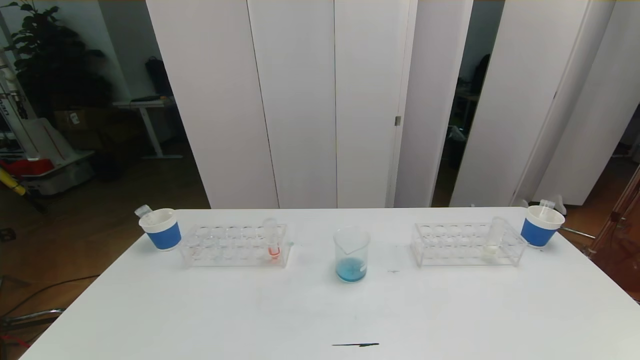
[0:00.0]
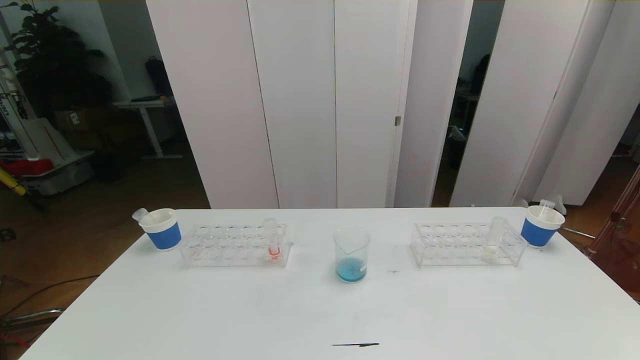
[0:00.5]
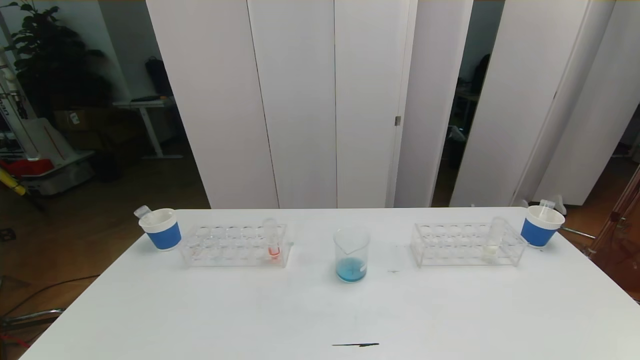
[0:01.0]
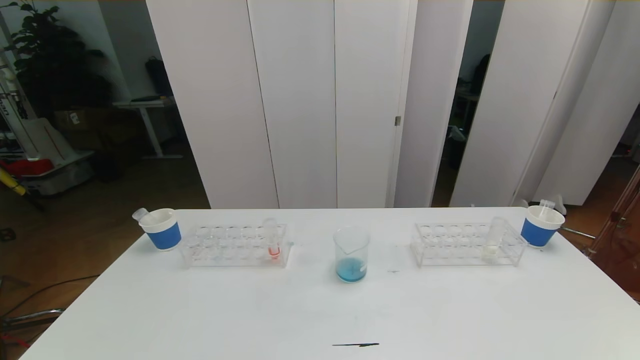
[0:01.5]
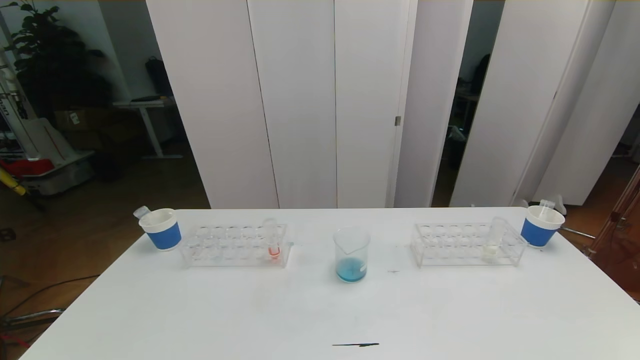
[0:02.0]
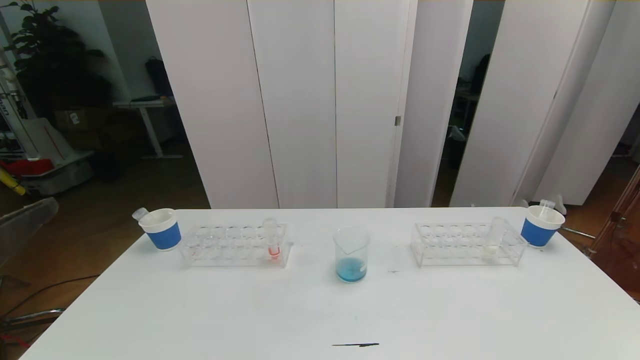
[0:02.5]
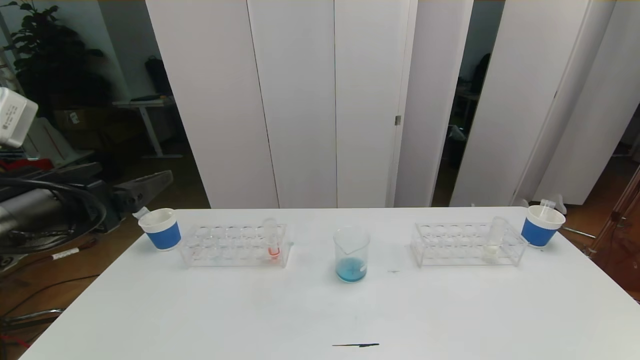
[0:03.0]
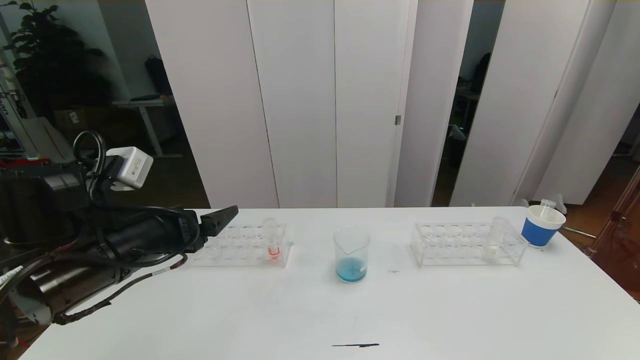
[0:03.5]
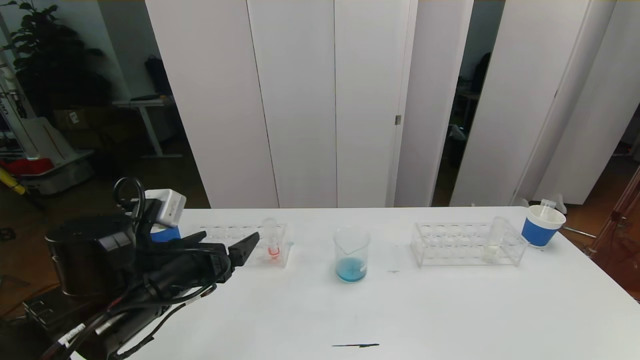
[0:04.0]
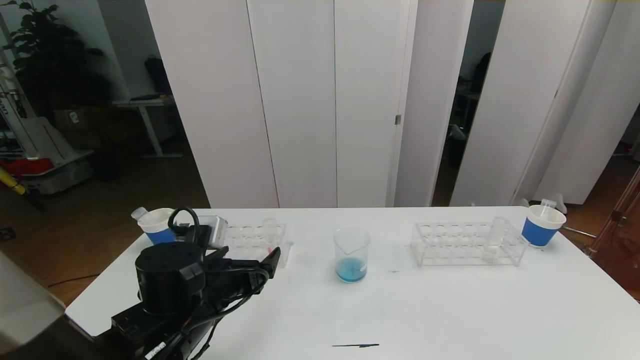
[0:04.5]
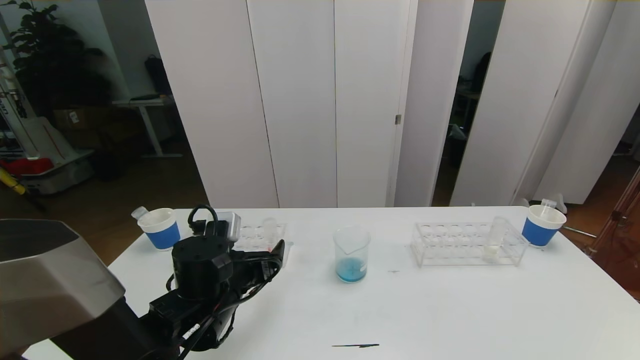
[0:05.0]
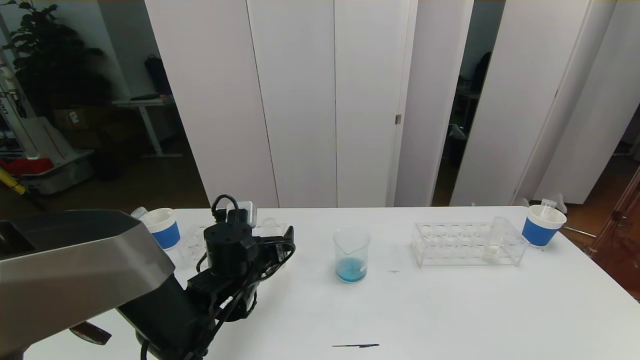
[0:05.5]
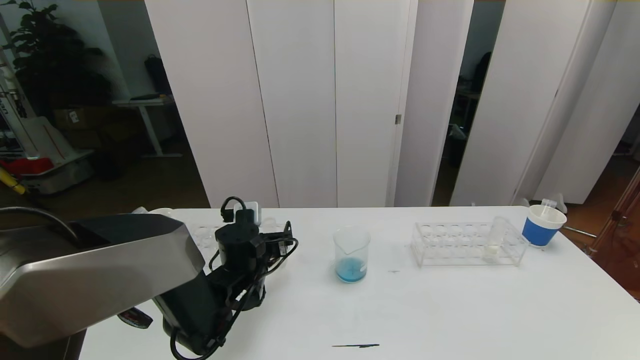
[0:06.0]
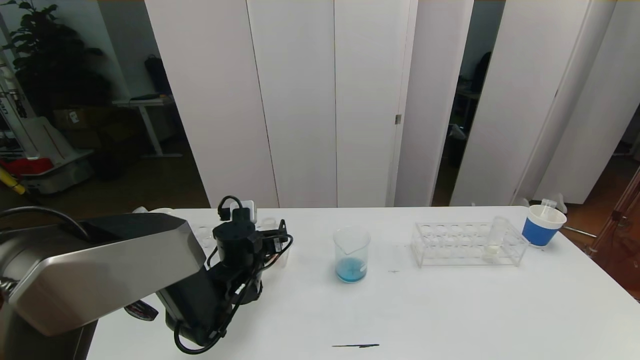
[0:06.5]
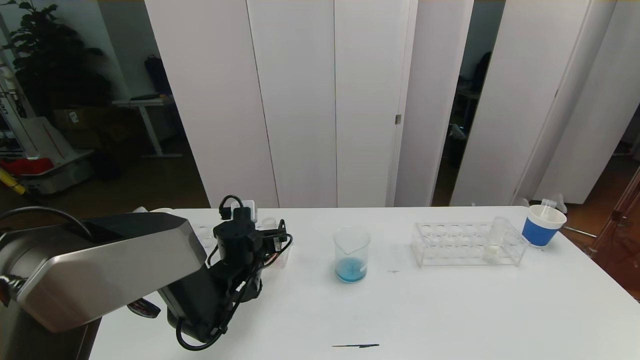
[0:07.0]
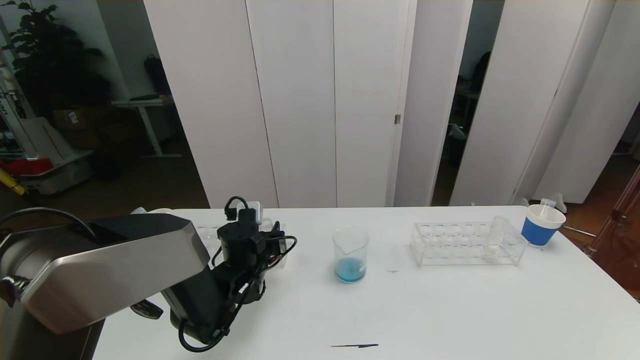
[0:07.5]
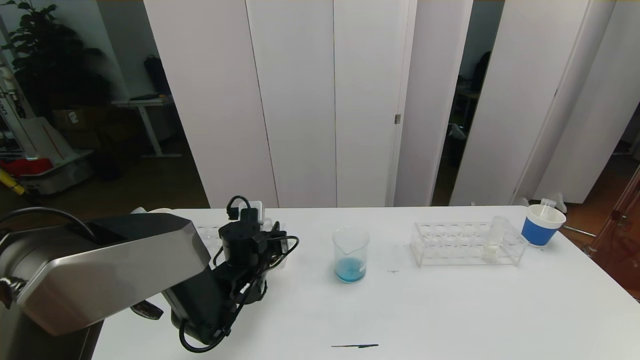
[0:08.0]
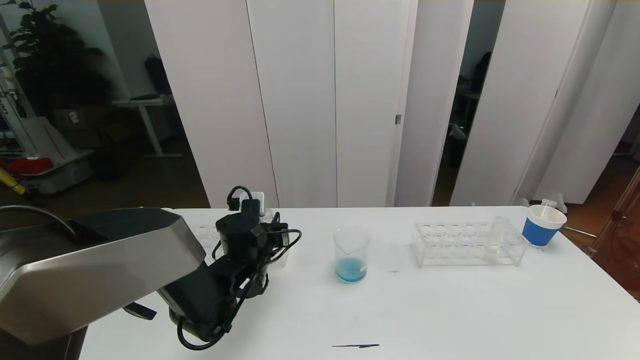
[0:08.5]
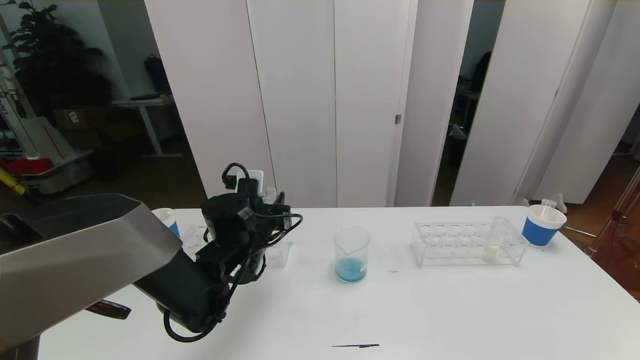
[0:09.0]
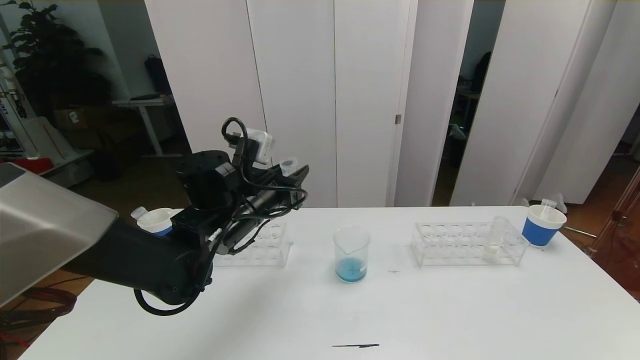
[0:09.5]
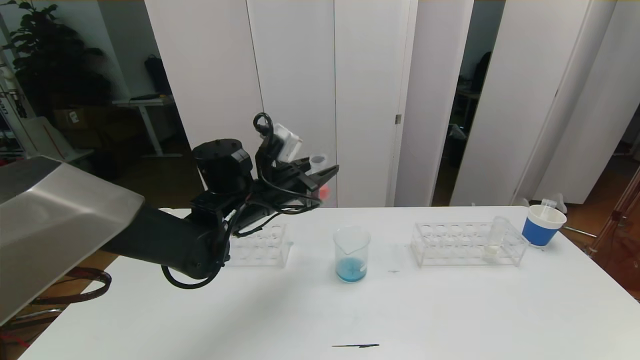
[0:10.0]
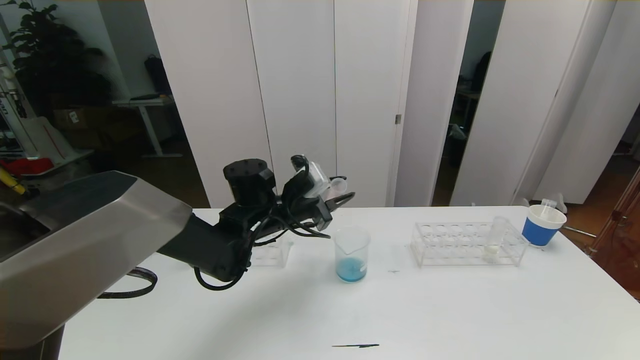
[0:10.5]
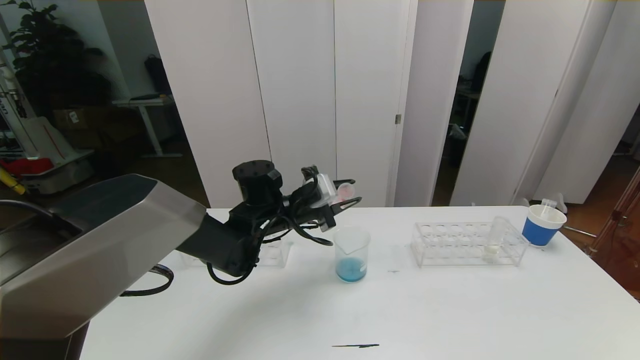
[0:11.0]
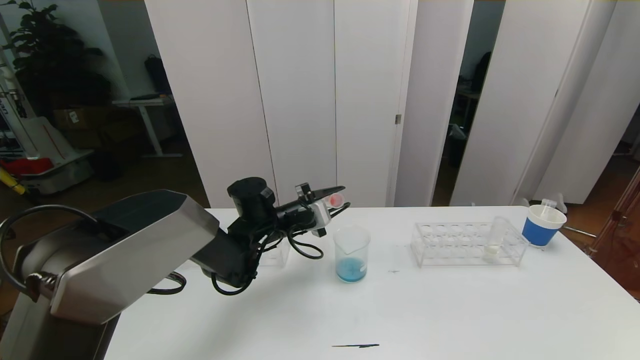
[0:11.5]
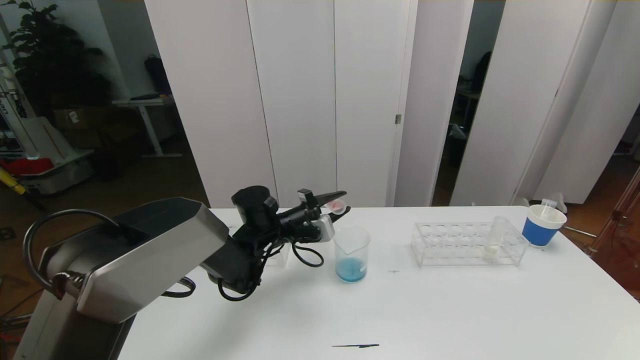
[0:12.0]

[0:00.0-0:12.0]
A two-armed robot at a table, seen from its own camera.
Task of the whole recording: pick up the test tube with red pigment the test tube with blue pigment and the test tube with white pigment by grippers and pour them into the beaker.
0:02.0 to 0:04.0: The left gripper moves forward, approximately 25 cm.
0:04.0 to 0:06.0: The left gripper is displaced forward, downward and to the right by approximately 15 cm.
0:06.0 to 0:08.0: The left gripper closes its fingers.
0:08.0 to 0:10.0: The left gripper heads upward, covering about 15 cm.
0:10.0 to 0:12.0: The left gripper moves downward, approximately 10 cm.

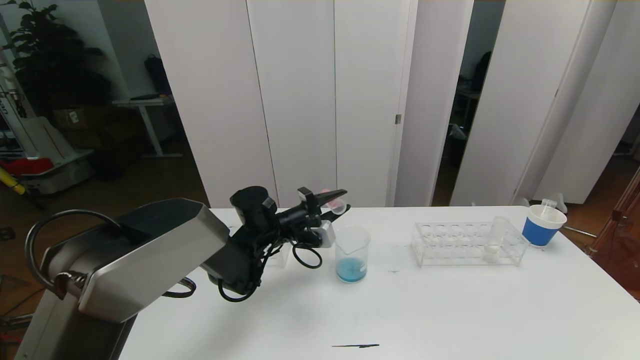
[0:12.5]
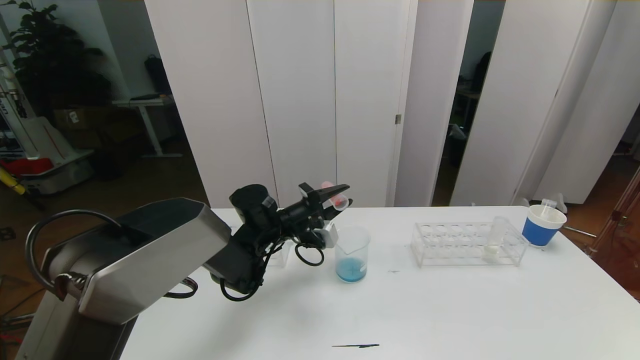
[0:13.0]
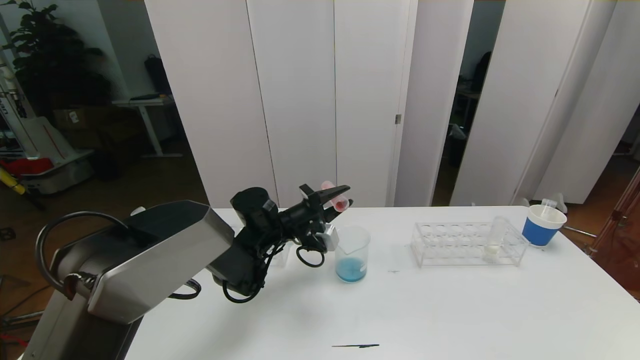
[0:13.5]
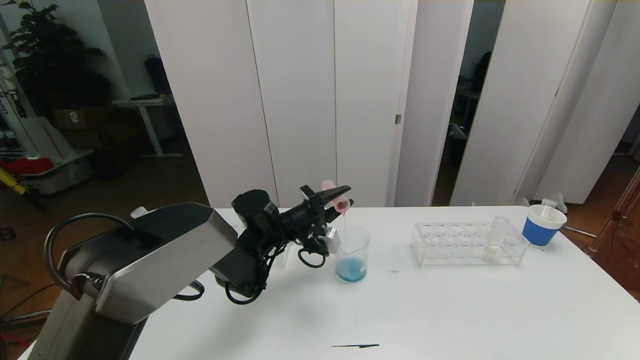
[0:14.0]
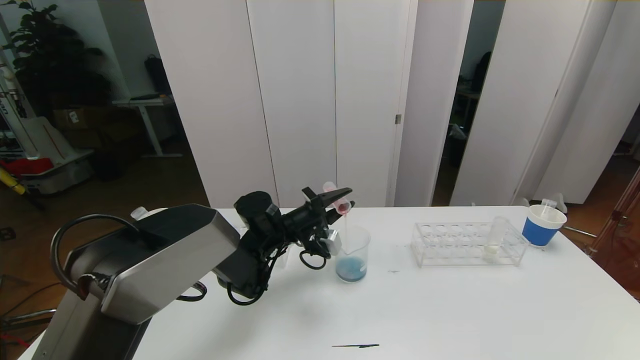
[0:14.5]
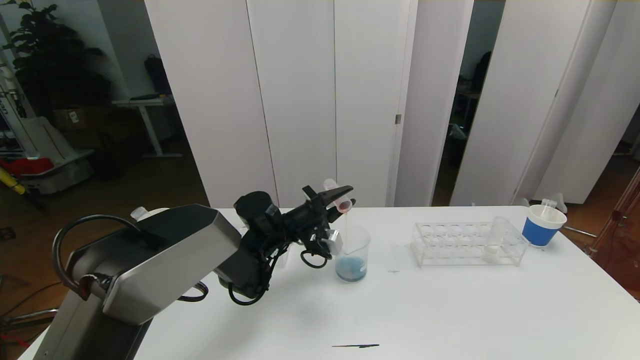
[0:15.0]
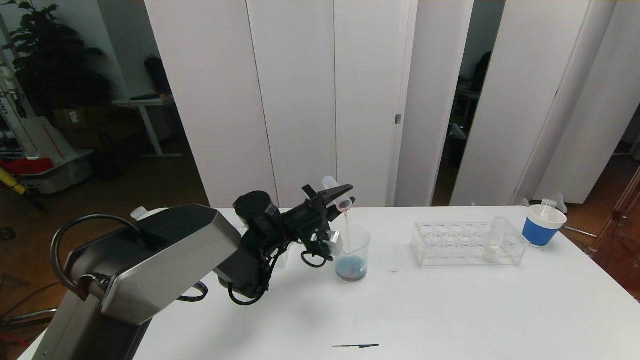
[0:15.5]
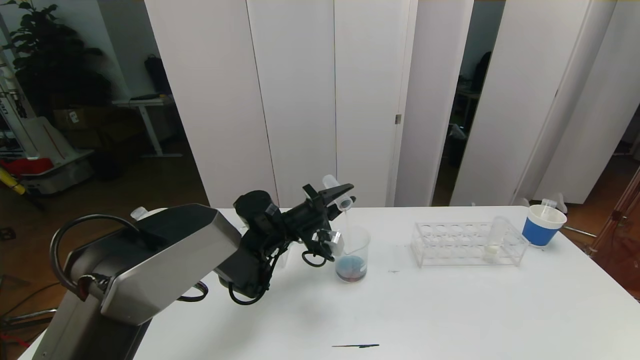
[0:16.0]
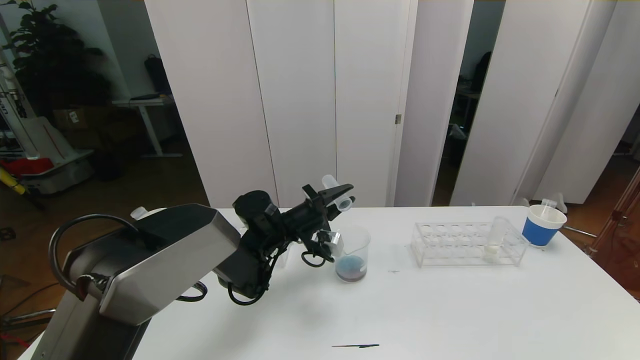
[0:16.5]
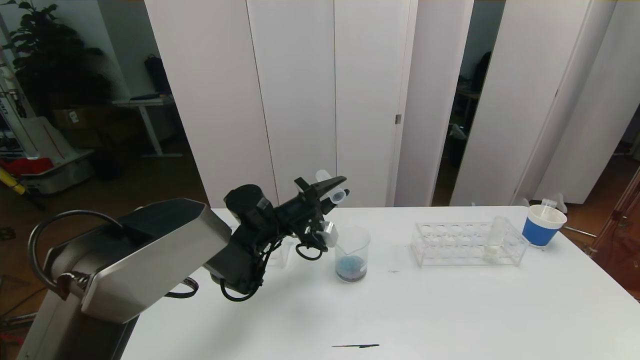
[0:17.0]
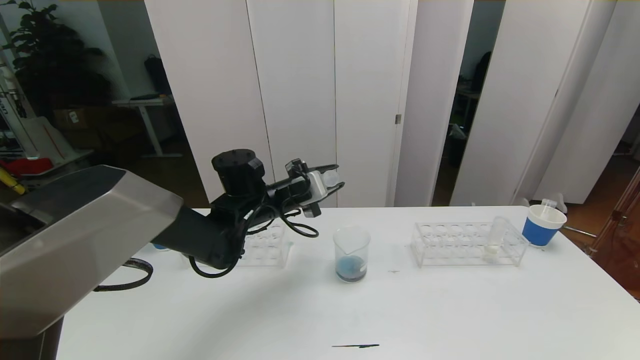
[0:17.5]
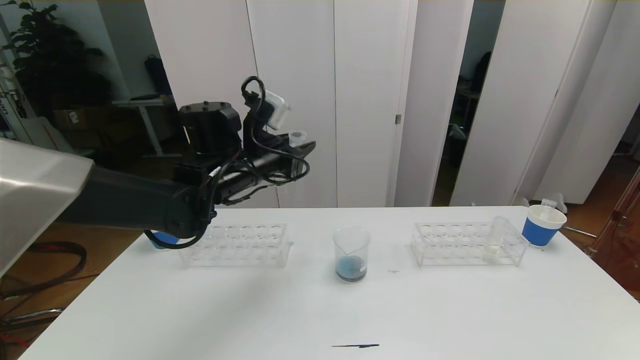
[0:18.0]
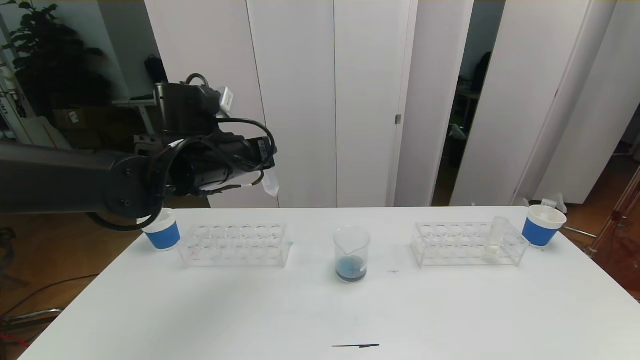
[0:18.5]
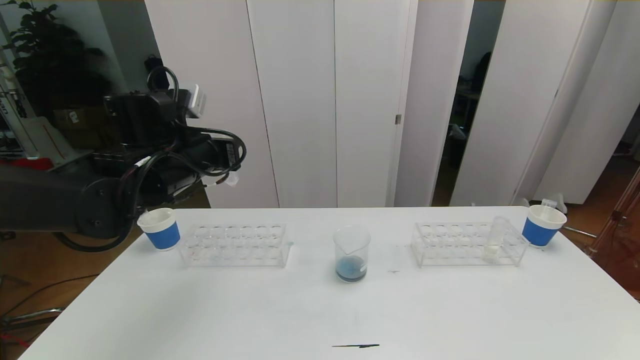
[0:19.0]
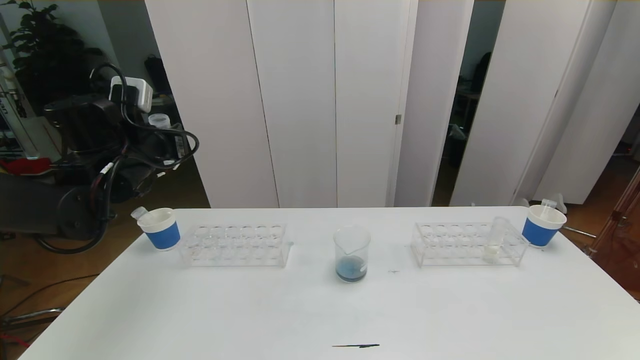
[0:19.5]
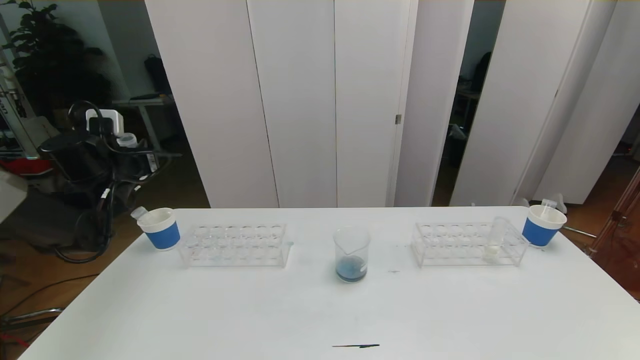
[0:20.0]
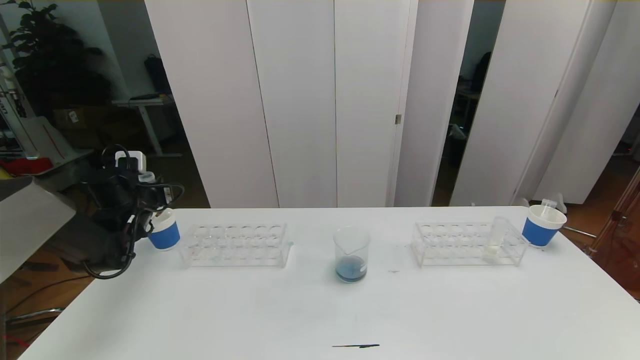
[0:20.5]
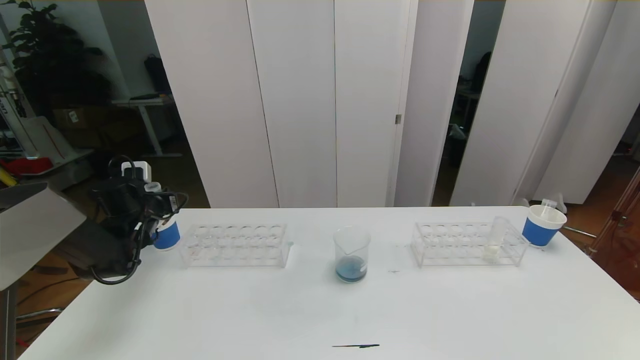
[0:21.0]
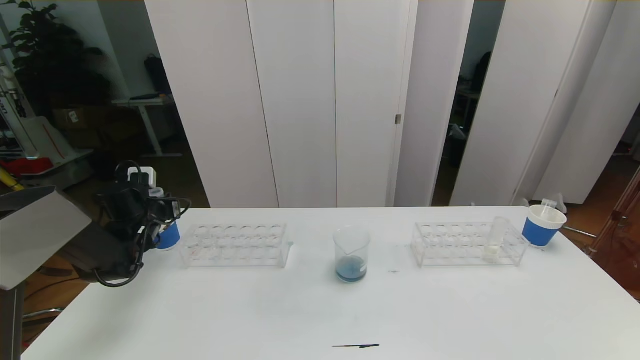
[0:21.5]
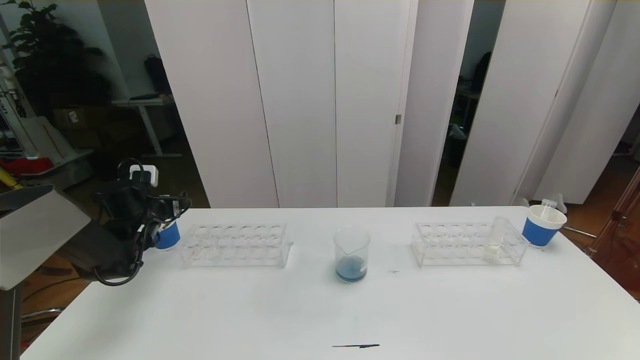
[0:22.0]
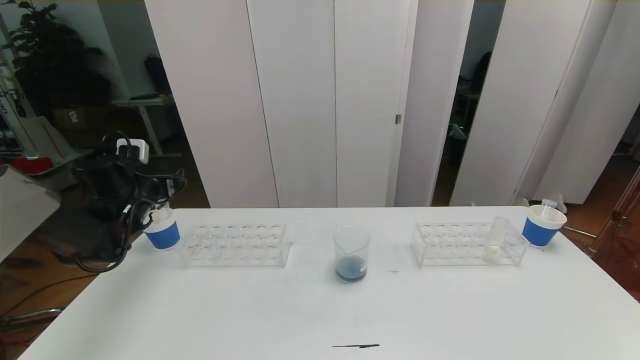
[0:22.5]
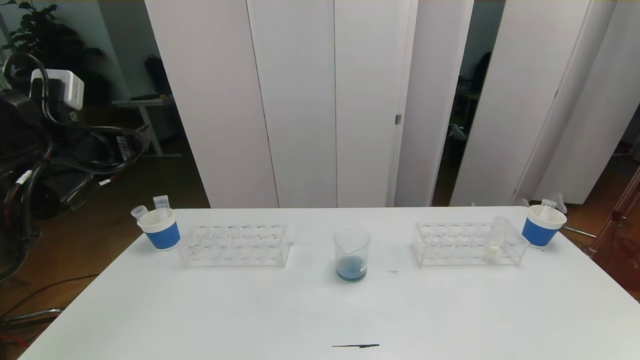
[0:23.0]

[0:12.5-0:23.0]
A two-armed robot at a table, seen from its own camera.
Task of the whole recording: pick up the test tube with red pigment the test tube with blue pigment and the test tube with white pigment by grippers and pour them into the beaker.
0:12.5 to 0:16.5: The grippers move only a little.
0:16.5 to 0:19.0: The left gripper heads upward and to the left, covering some 20 cm.
0:19.0 to 0:21.0: The left gripper moves to the left, downward and forward, approximately 25 cm.
0:21.0 to 0:23.0: The left gripper travels upward and backward by roughly 20 cm, and opens up.
